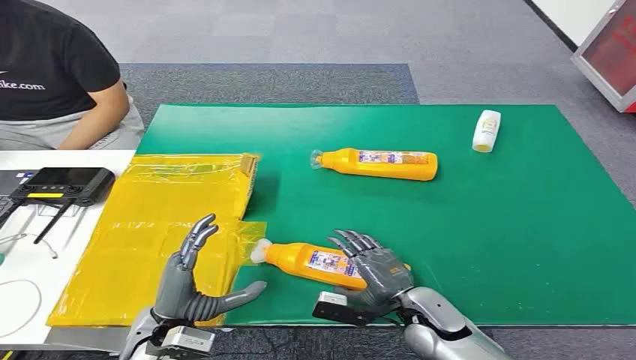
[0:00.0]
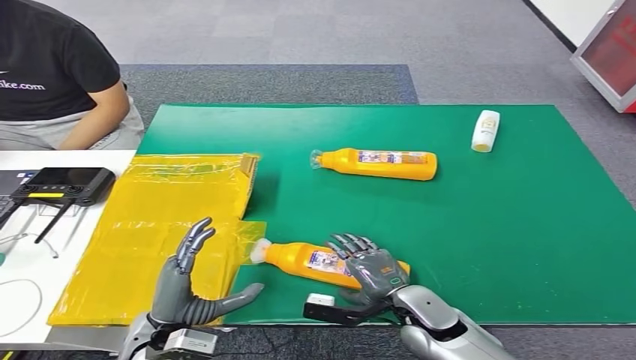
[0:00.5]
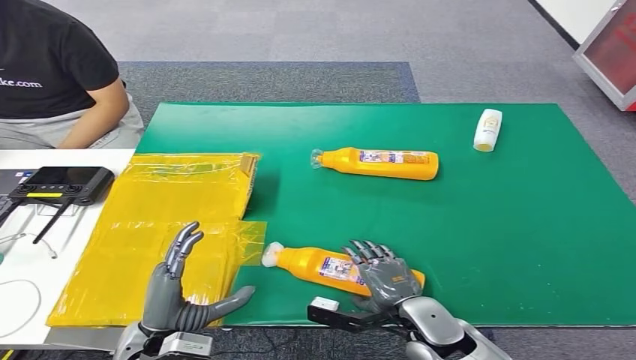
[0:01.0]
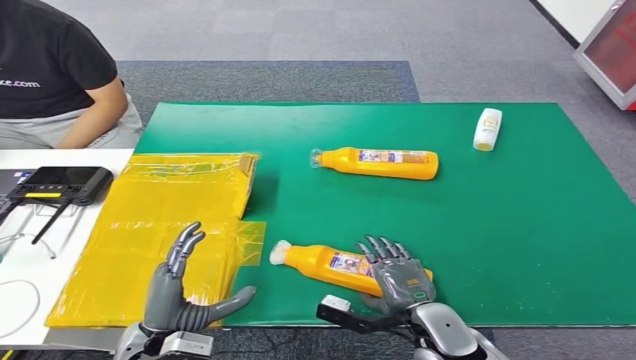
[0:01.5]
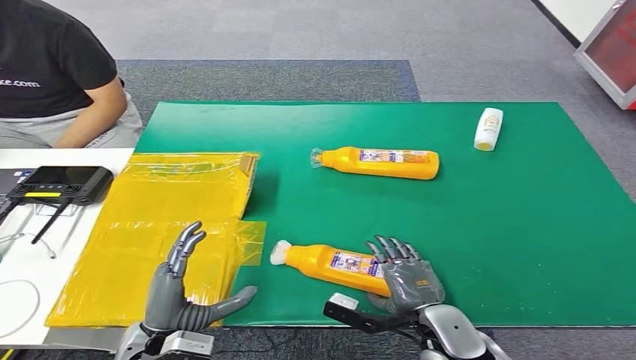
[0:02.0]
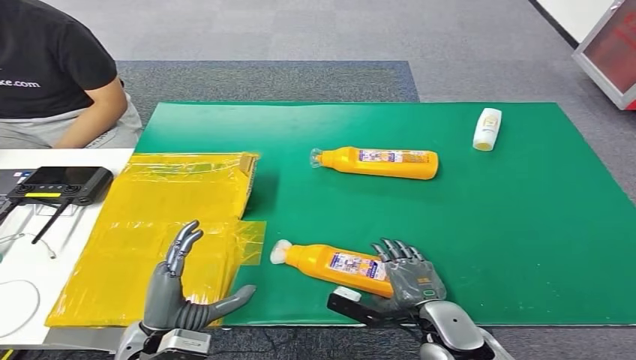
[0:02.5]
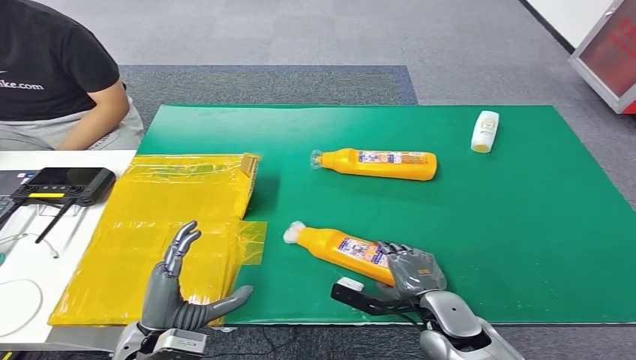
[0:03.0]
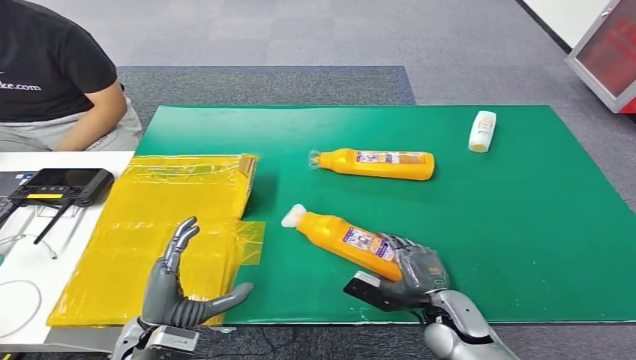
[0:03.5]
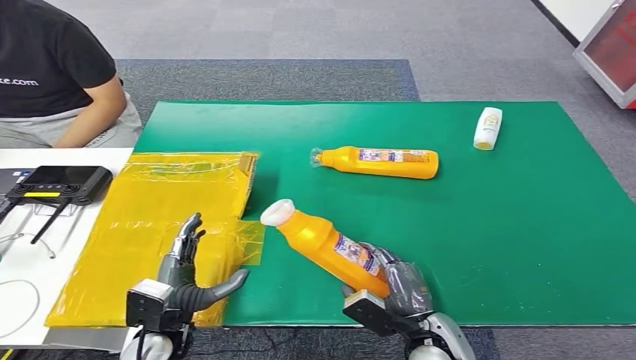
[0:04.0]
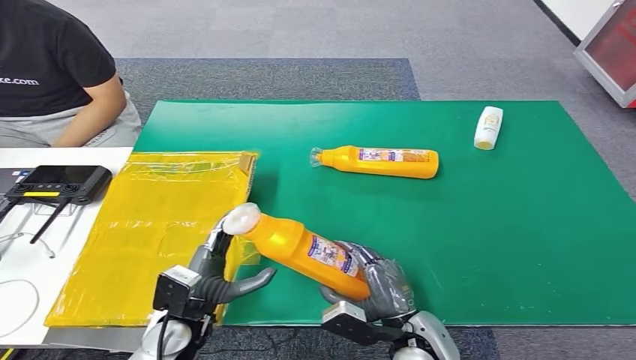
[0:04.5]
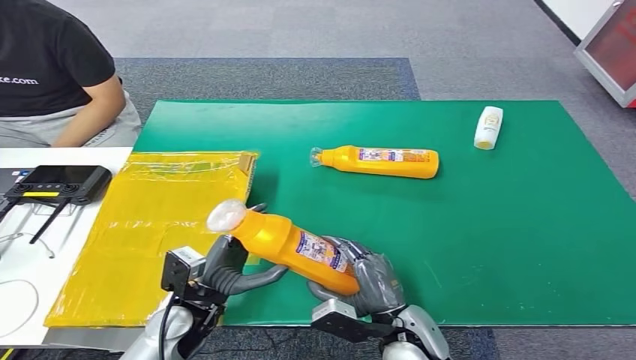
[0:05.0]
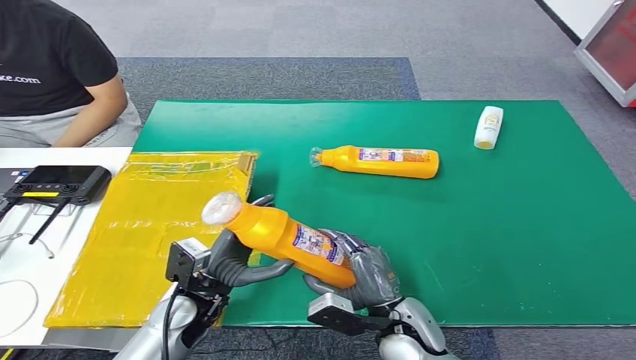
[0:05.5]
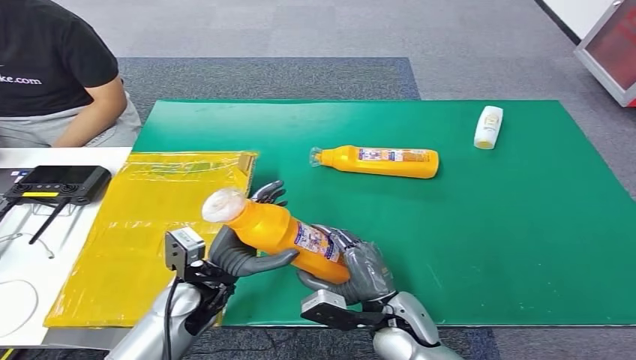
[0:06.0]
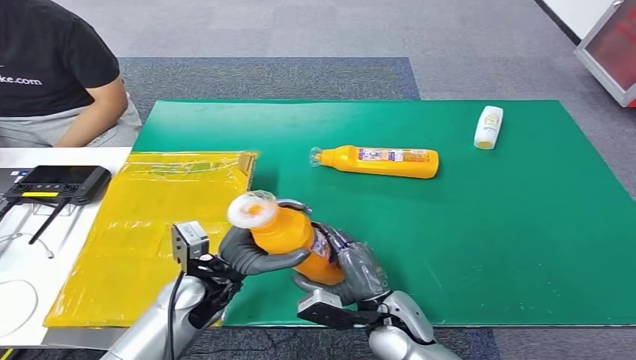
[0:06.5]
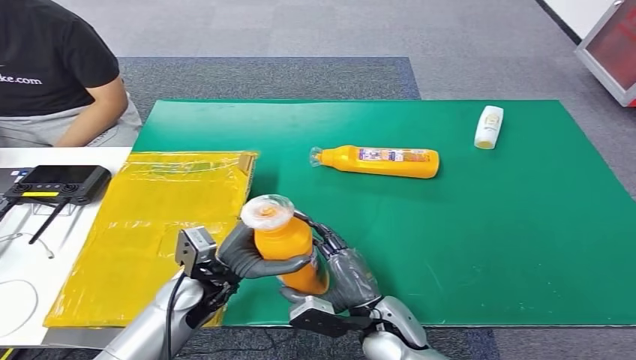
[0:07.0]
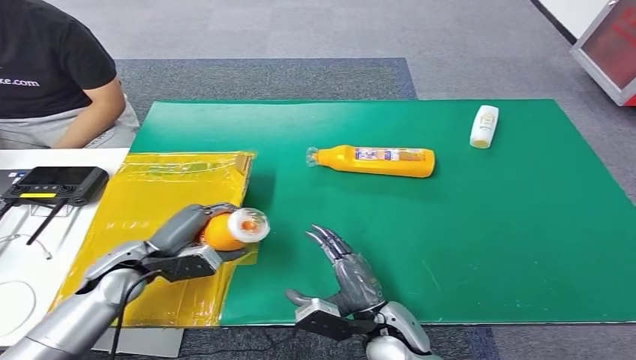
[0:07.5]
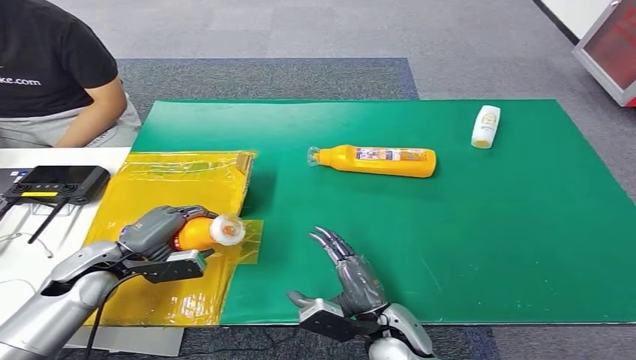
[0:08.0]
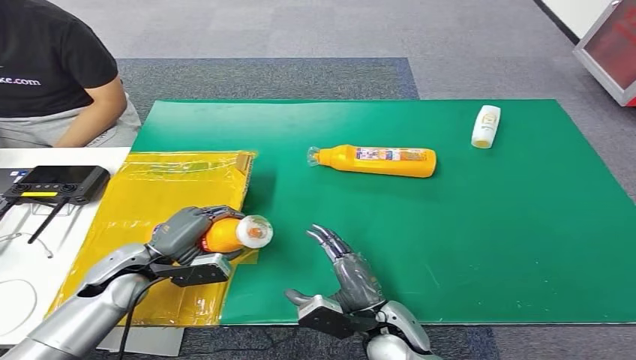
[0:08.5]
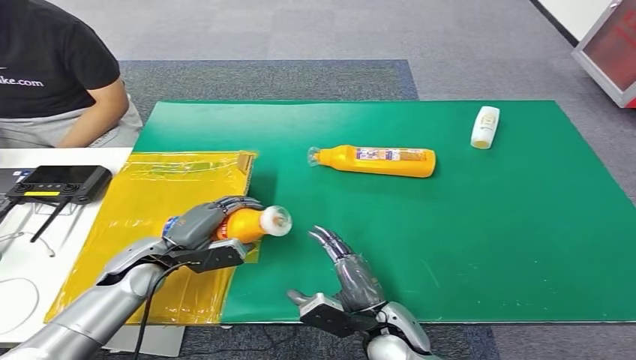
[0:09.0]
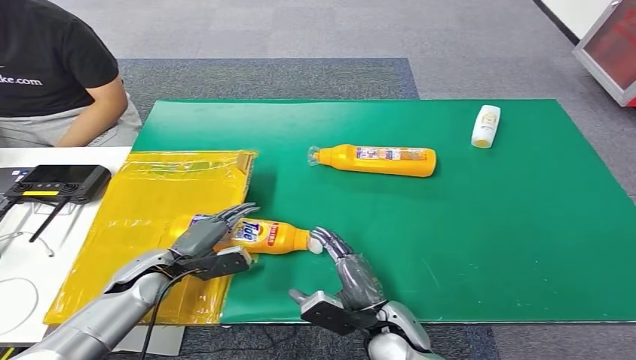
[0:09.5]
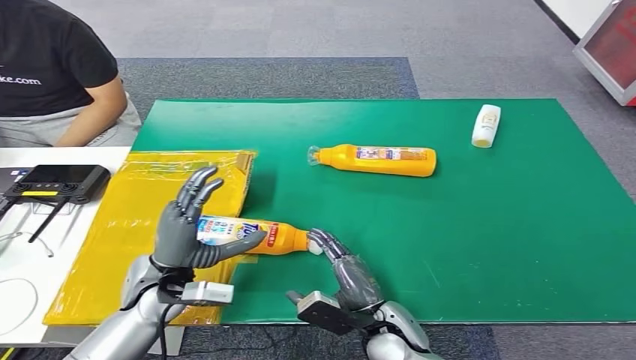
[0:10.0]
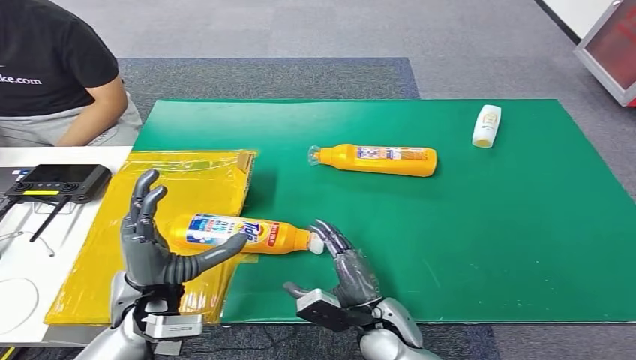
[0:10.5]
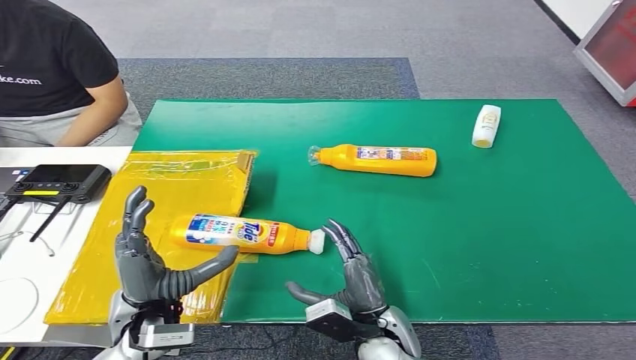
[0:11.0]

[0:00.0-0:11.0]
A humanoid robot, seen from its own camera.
Step, 0:00.0 to 0:04.0: Pick up the bottle from the table.
Step, 0:04.5 to 0:11.0: Turn the bottle to the front side.
0:02.0 to 0:03.5: The right hand ends up roughly 5 cm from where it was.
0:05.5 to 0:07.5: The left hand heads to the left and forward, covering roughly 10 cm.
0:07.5 to 0:09.0: There are only small adjustments of the hands.
0:09.0 to 0:11.0: The left hand shifts approximately 10 cm backward and to the right.

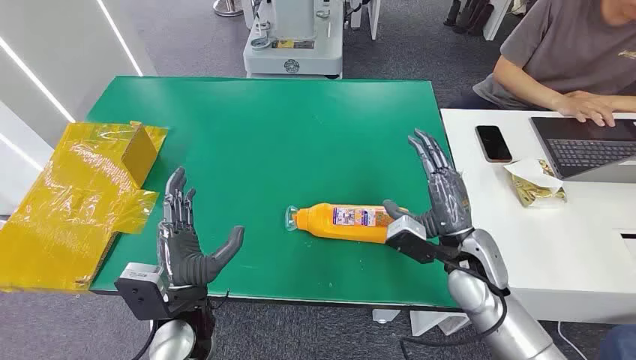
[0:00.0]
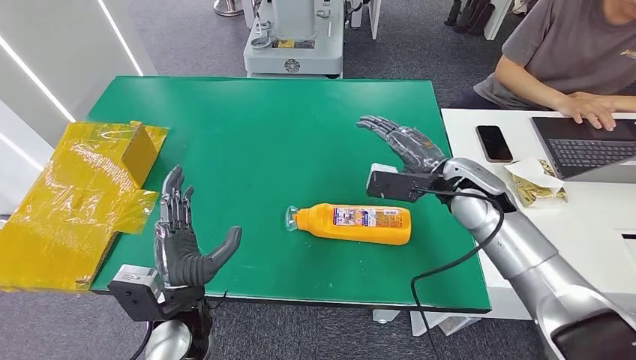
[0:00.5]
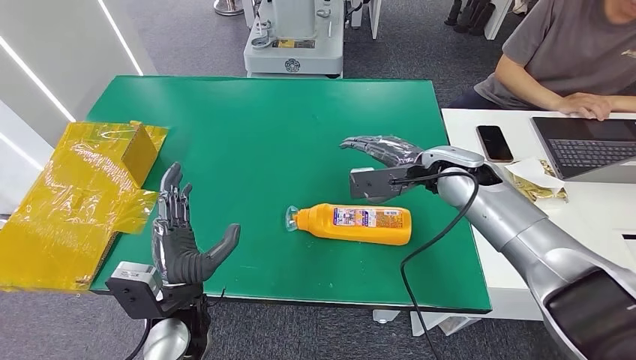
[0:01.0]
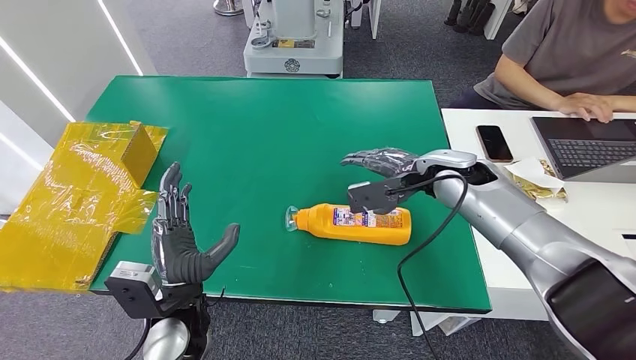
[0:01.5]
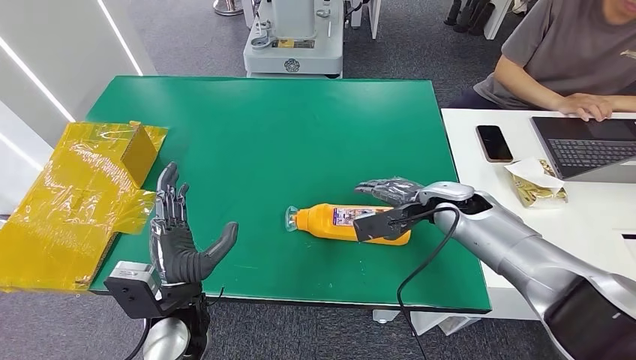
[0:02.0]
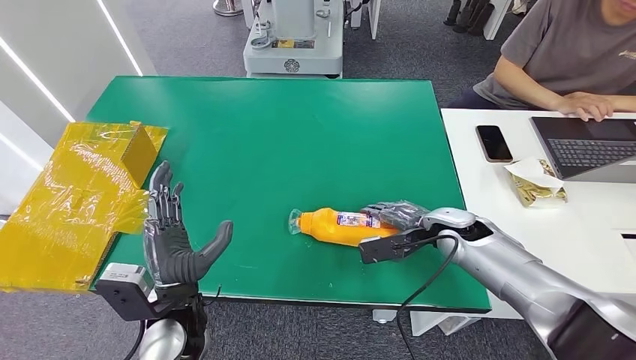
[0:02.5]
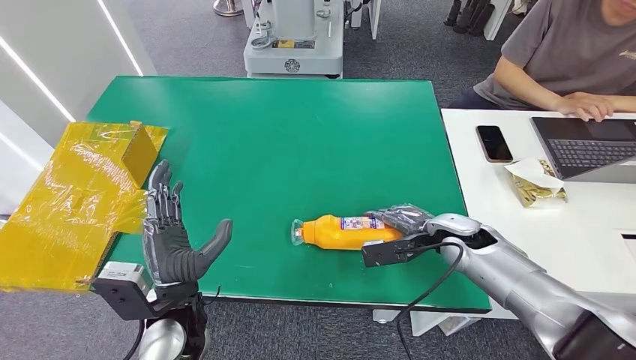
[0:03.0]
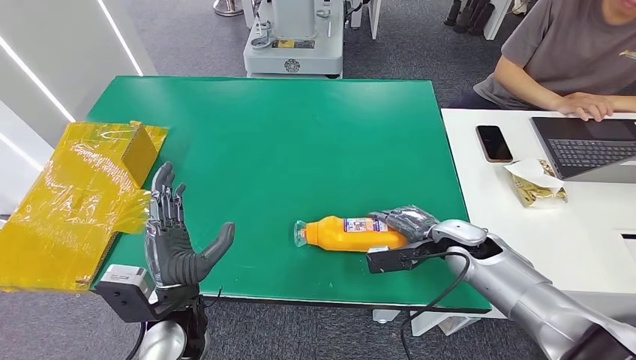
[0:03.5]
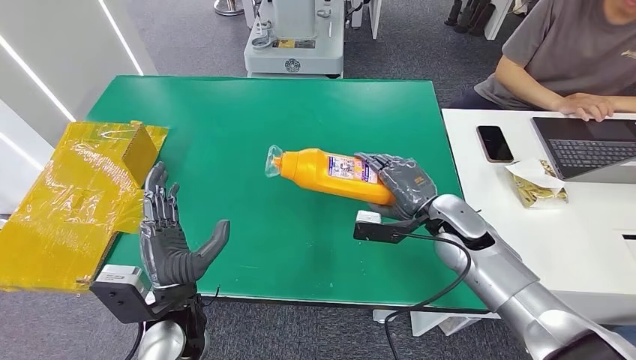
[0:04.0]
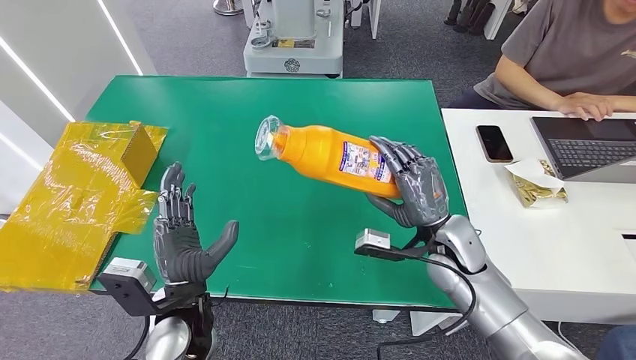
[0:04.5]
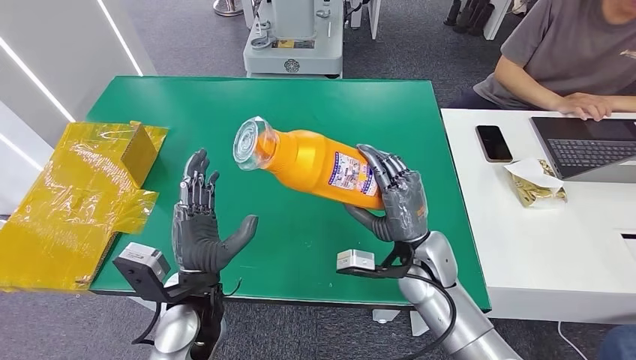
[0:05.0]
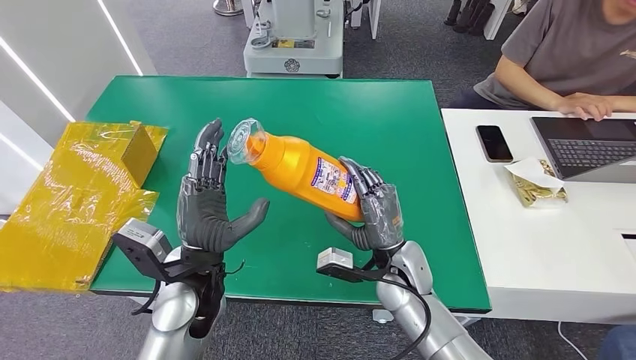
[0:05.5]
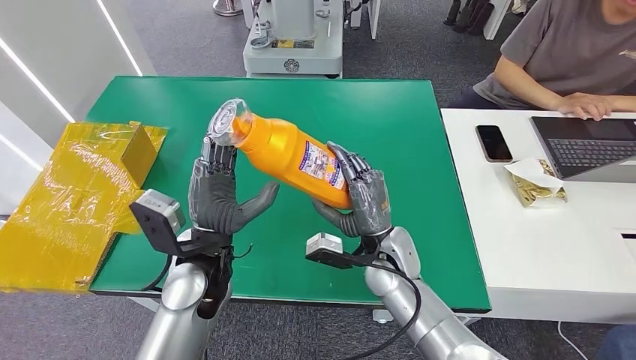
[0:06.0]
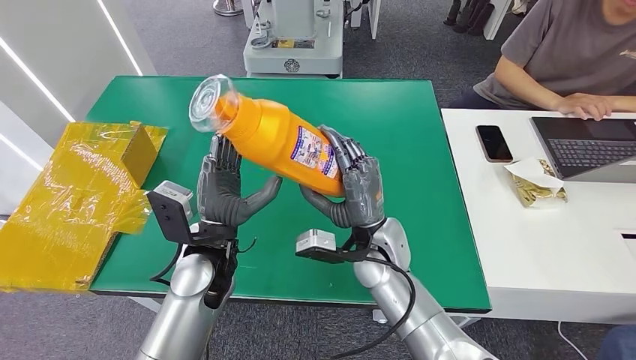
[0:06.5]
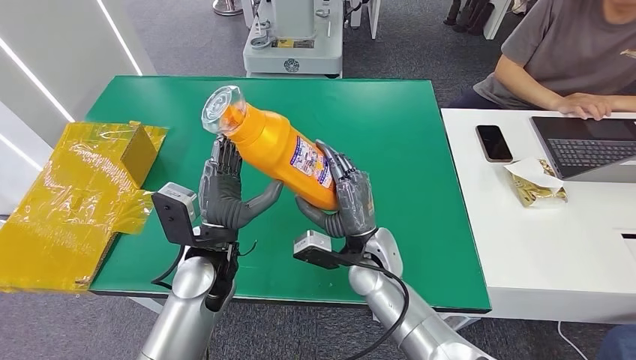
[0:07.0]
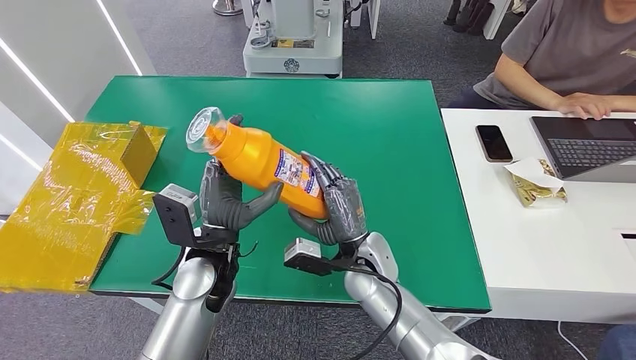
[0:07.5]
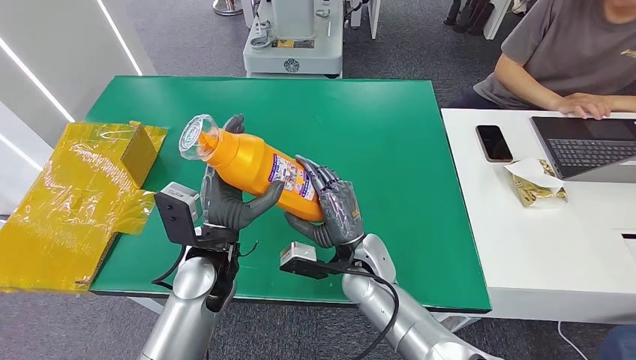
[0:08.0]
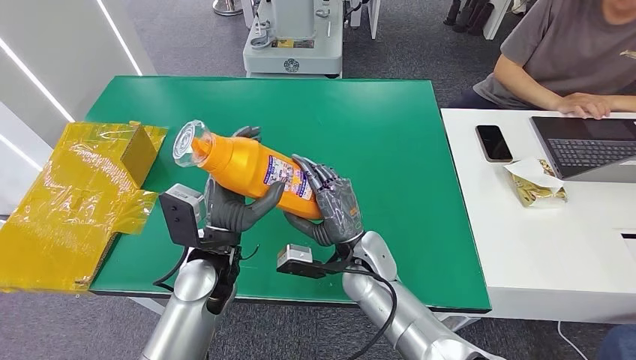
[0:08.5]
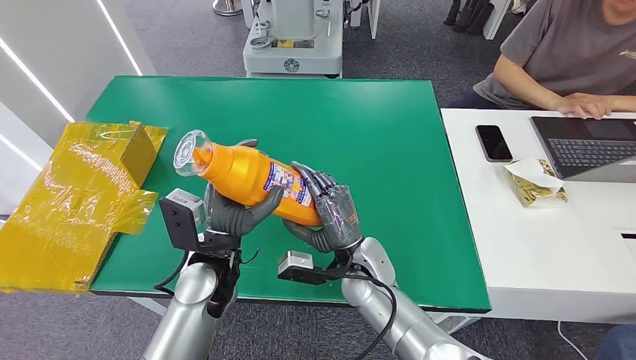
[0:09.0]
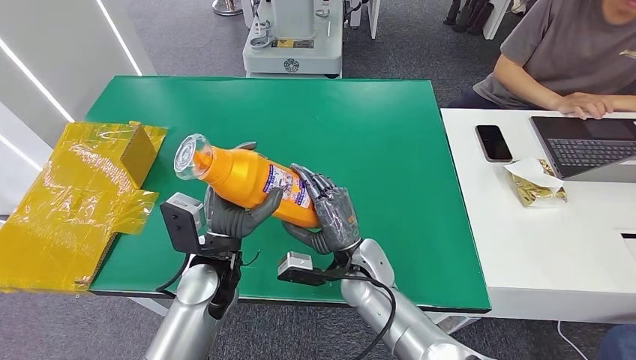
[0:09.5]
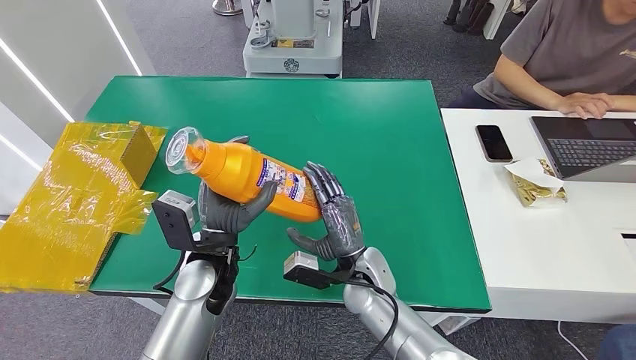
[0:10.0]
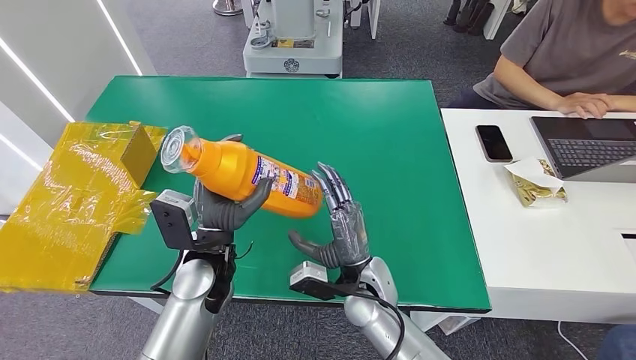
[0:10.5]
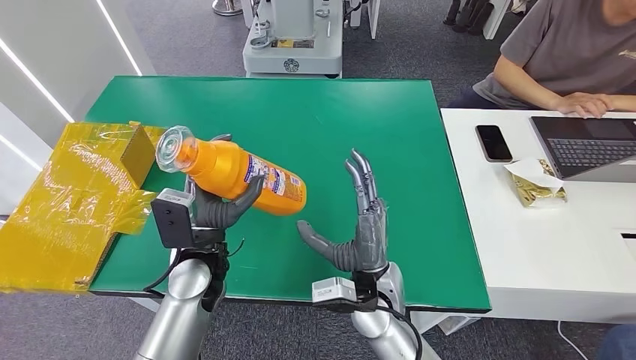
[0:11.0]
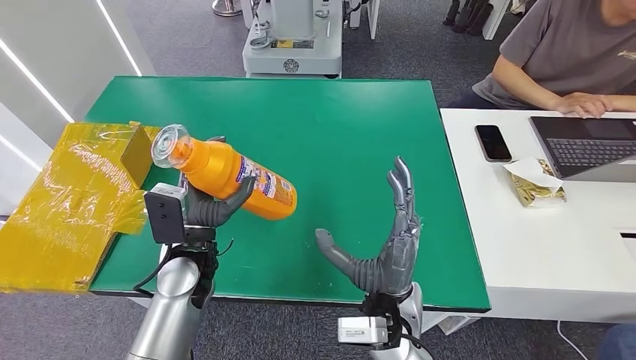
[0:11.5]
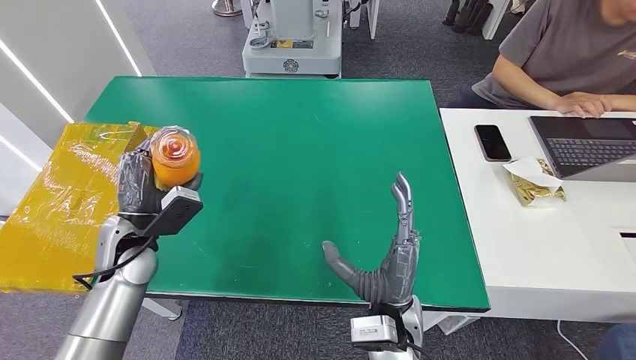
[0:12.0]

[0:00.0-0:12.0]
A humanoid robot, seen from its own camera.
Step, 0:00.0 to 0:04.5: Pick up the bottle from the table.
0:06.0 to 0:10.0: The hands move only a little.
0:10.0 to 0:12.0: The left hand travels to the left by approximately 15 cm, while the right hand travels backward by approximately 10 cm.
